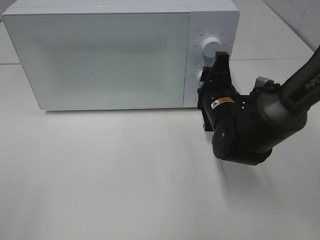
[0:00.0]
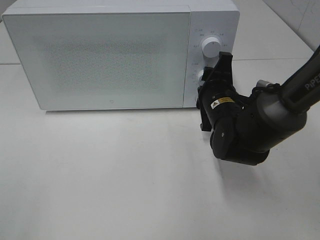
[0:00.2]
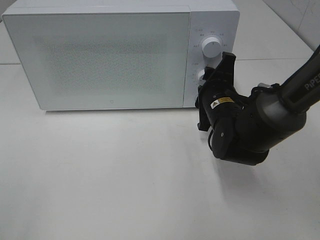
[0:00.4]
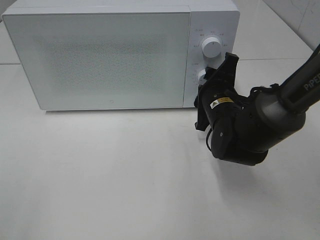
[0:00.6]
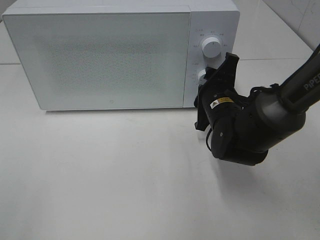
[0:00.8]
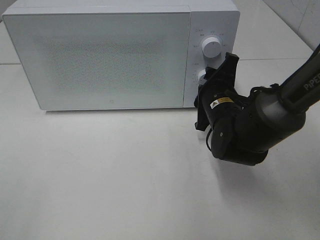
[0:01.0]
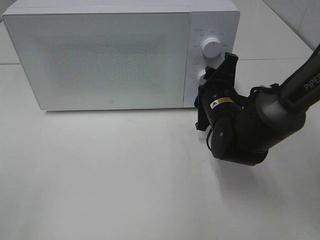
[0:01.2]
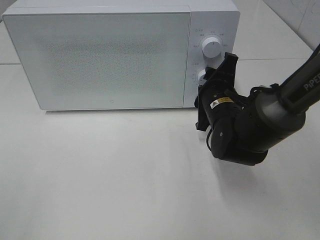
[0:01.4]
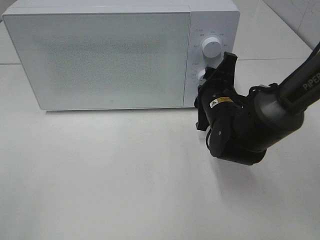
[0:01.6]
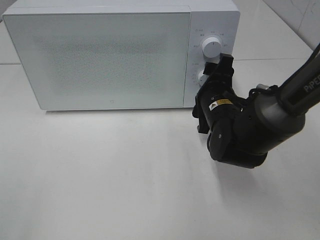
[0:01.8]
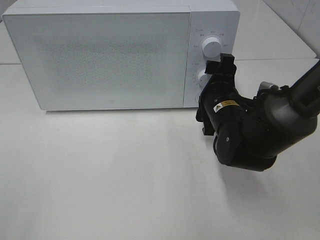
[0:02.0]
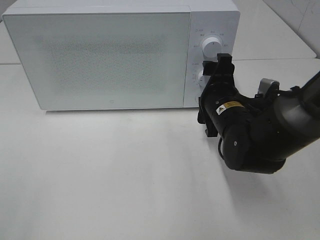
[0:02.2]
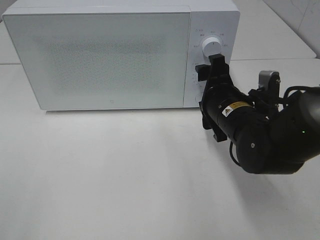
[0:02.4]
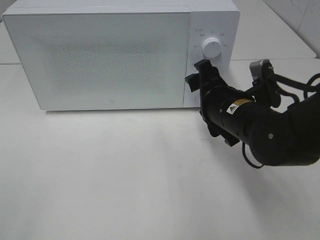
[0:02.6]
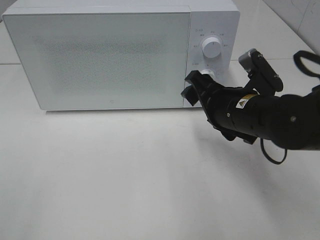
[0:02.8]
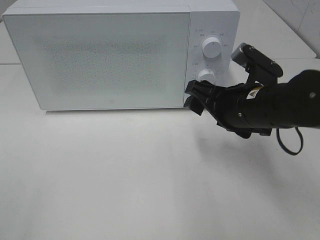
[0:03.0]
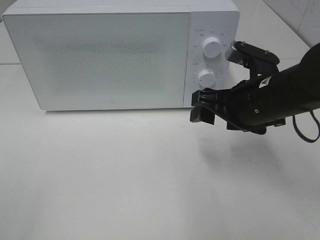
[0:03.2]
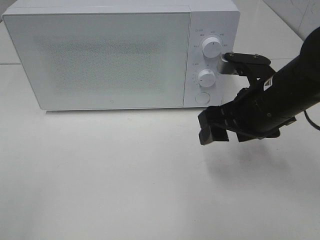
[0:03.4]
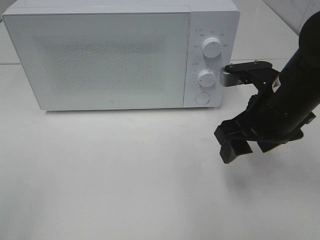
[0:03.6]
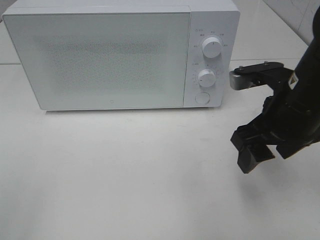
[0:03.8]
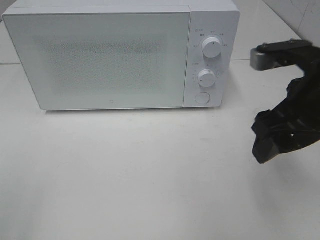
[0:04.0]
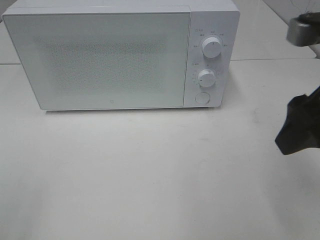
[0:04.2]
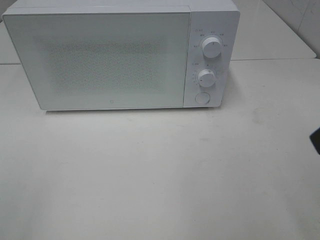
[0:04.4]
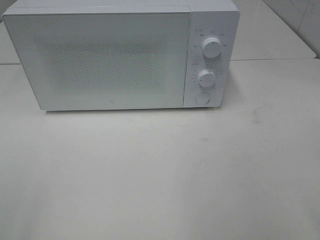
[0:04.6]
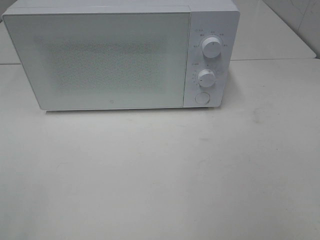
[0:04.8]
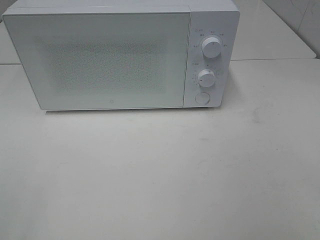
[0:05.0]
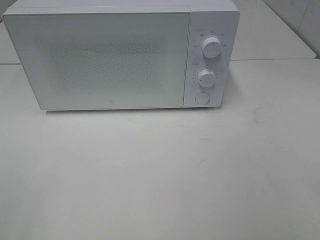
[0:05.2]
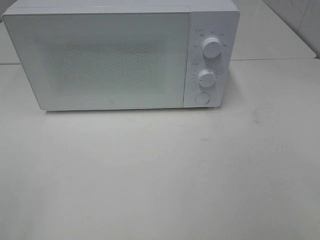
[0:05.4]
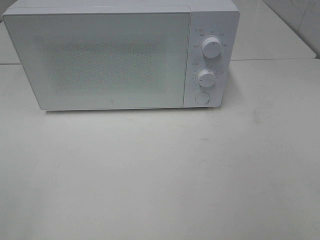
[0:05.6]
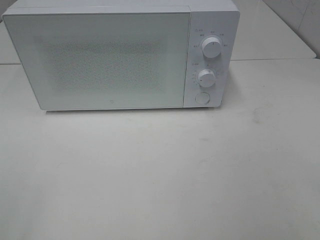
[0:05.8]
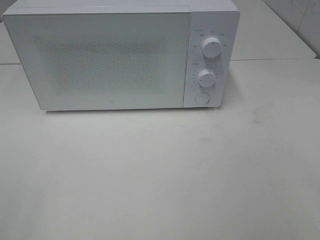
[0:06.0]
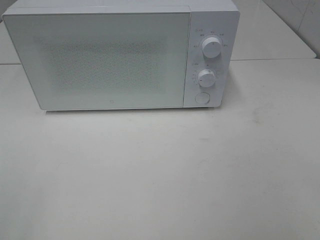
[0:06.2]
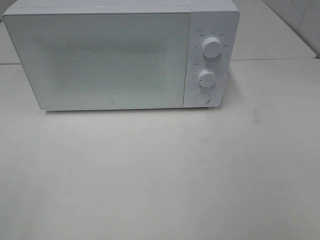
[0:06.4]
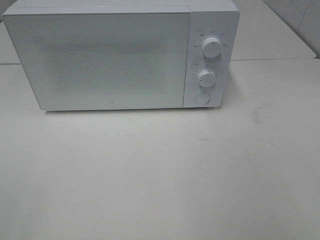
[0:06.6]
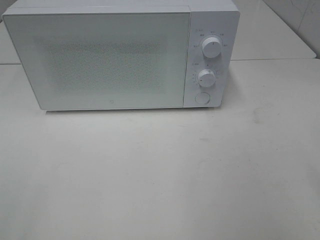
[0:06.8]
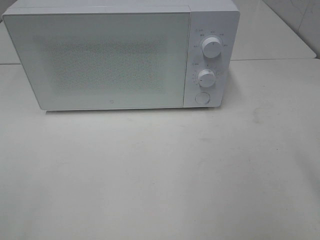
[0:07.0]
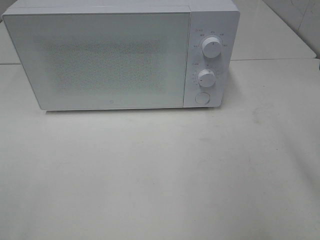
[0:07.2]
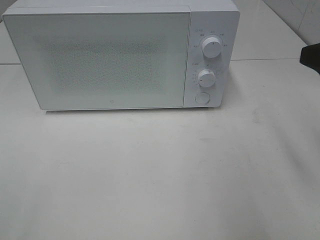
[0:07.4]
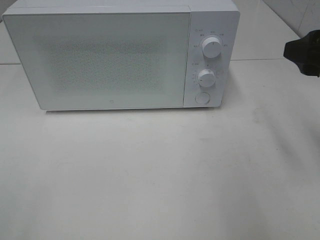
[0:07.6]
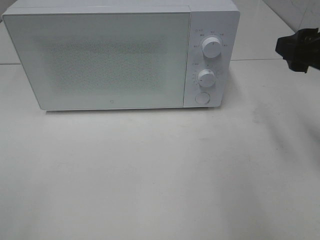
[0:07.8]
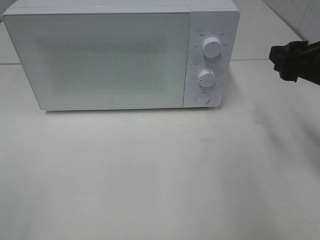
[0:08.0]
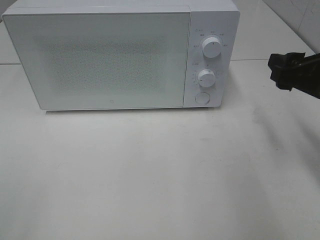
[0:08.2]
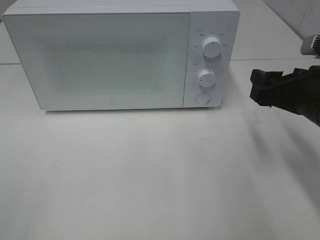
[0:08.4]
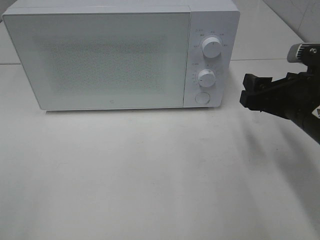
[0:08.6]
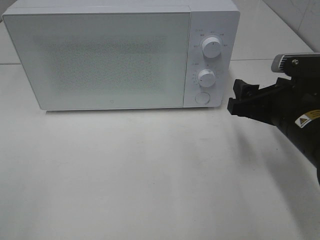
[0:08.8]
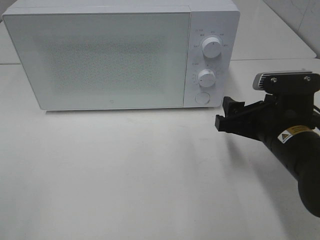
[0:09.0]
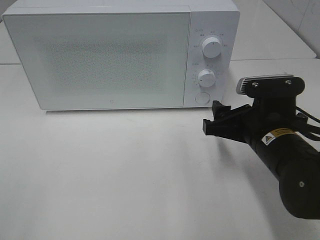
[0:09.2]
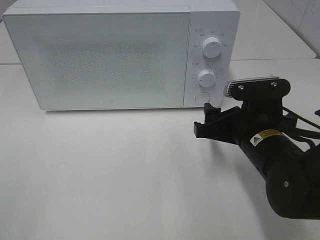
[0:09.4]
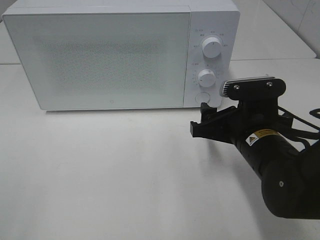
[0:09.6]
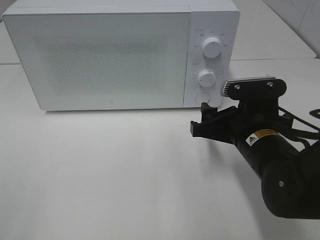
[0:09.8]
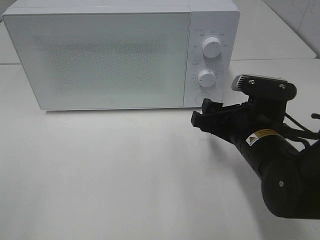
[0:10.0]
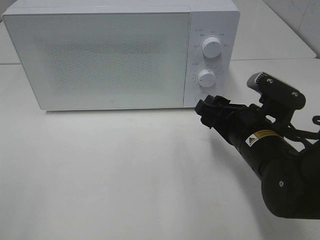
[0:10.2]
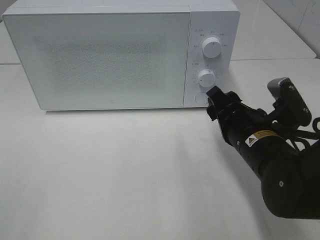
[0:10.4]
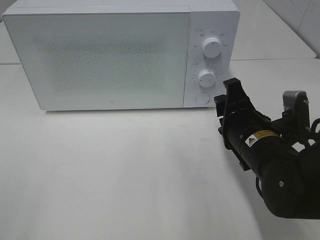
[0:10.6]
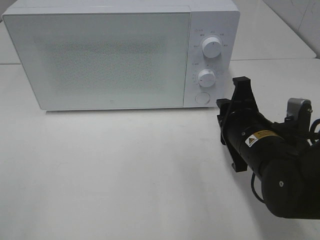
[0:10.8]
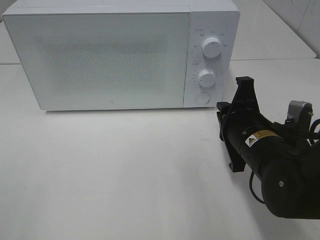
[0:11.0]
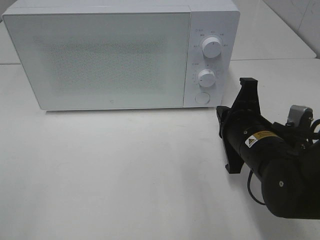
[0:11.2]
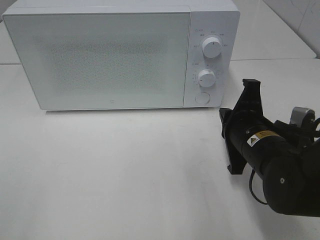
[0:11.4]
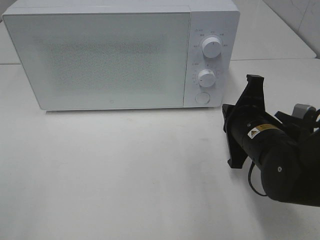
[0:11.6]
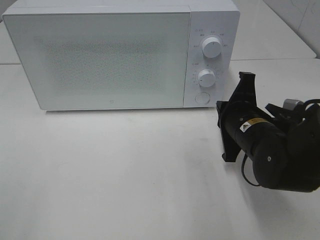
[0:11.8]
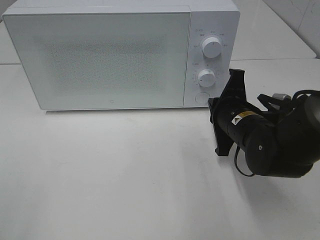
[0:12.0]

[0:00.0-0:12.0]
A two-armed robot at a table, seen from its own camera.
Task of the whole recording: Heat the burger.
0:00.0 to 0:01.6: The grippers move only a little.
0:01.6 to 0:03.0: The right gripper moves backward and upward, about 10 cm.
0:03.0 to 0:04.4: The right gripper heads upward, backward and to the right, covering approximately 20 cm.
0:06.0 to 0:07.6: The right gripper shifts some 20 cm forward.
0:07.6 to 0:09.0: The right gripper heads downward and to the left, covering approximately 15 cm.
0:10.4 to 0:12.0: The right gripper is displaced forward by approximately 5 cm, and closes up.

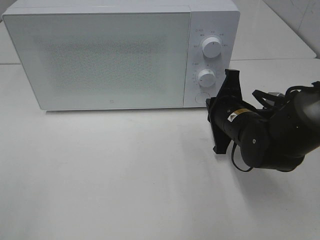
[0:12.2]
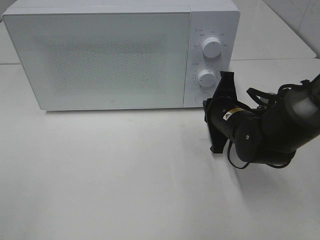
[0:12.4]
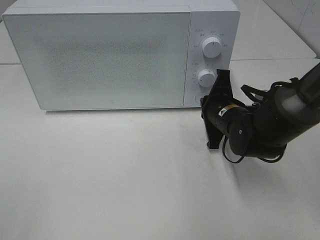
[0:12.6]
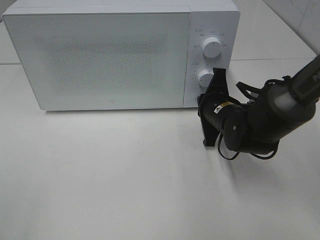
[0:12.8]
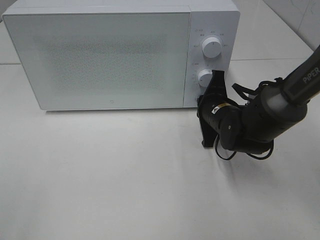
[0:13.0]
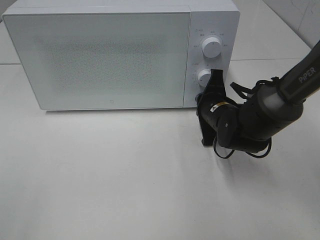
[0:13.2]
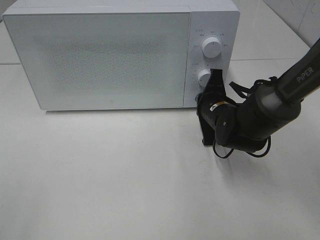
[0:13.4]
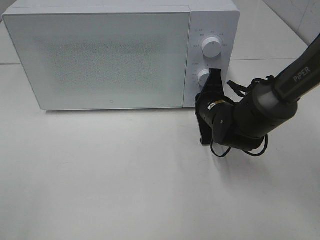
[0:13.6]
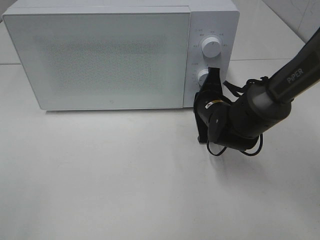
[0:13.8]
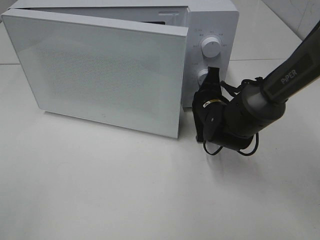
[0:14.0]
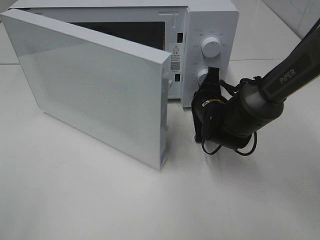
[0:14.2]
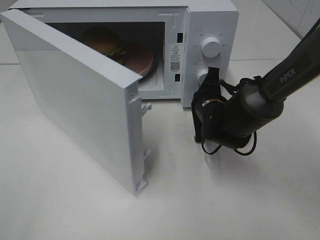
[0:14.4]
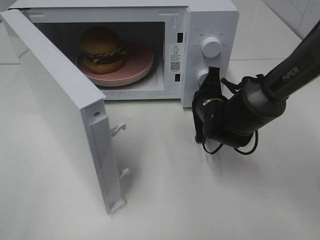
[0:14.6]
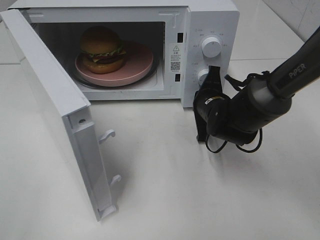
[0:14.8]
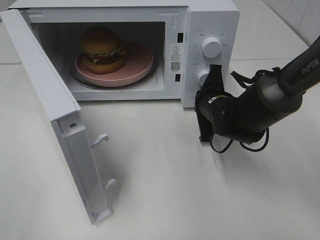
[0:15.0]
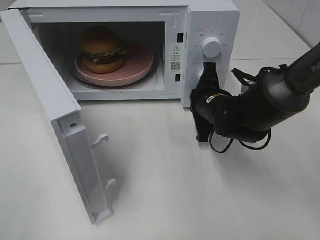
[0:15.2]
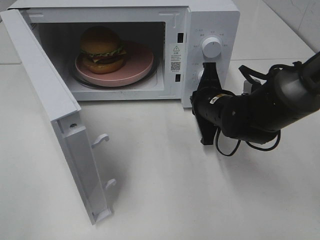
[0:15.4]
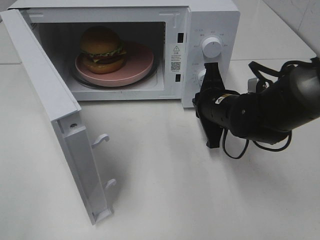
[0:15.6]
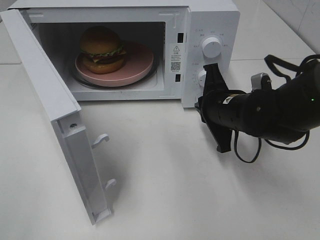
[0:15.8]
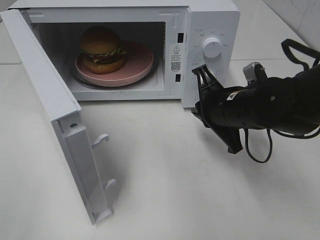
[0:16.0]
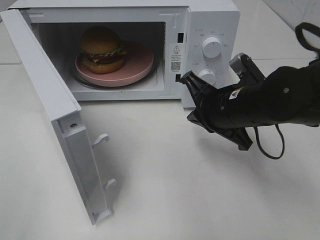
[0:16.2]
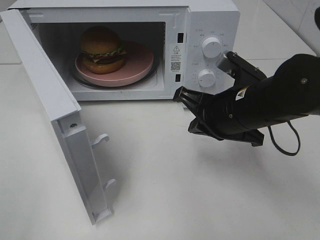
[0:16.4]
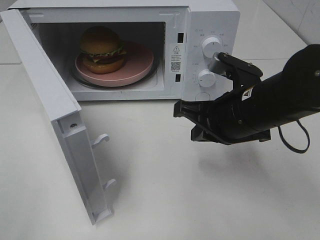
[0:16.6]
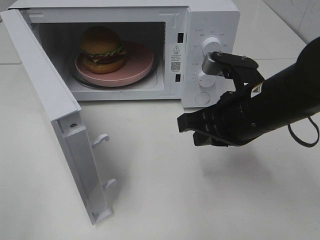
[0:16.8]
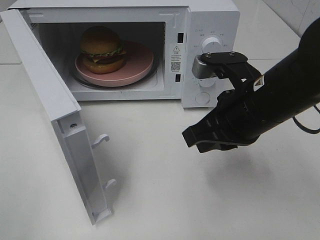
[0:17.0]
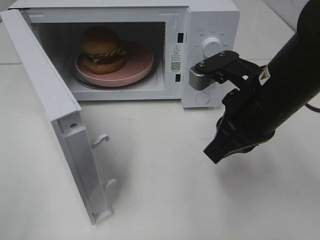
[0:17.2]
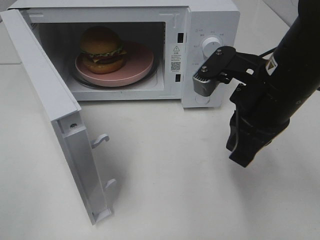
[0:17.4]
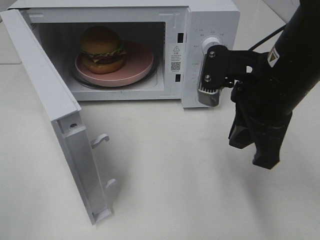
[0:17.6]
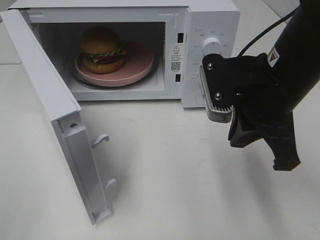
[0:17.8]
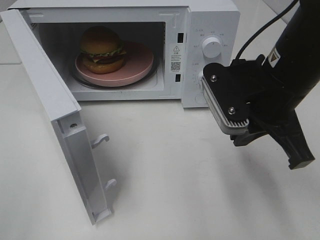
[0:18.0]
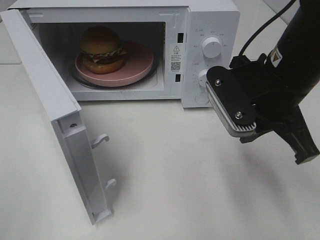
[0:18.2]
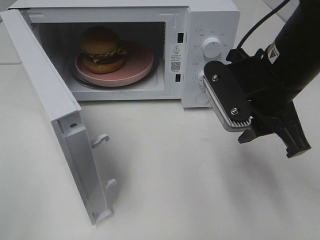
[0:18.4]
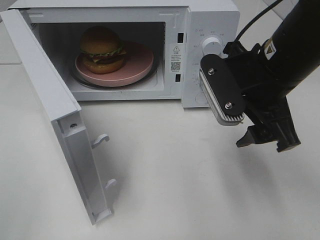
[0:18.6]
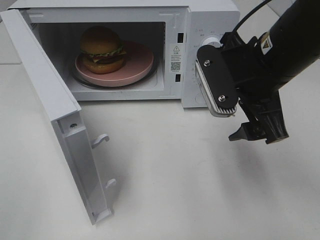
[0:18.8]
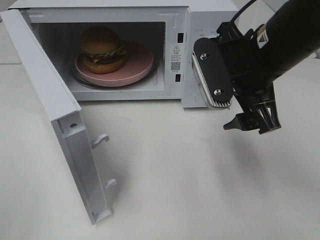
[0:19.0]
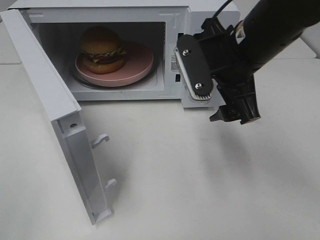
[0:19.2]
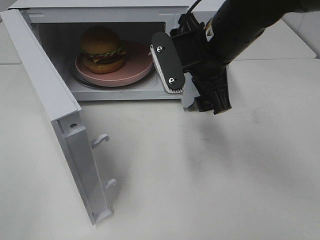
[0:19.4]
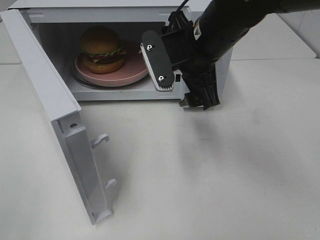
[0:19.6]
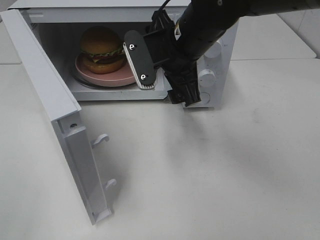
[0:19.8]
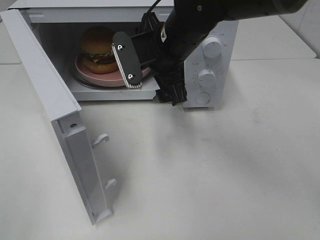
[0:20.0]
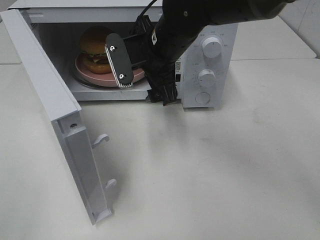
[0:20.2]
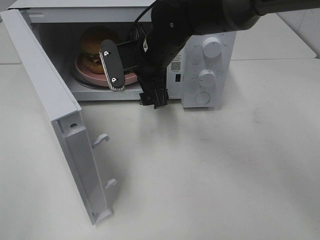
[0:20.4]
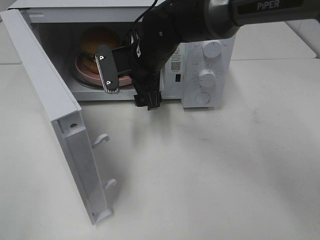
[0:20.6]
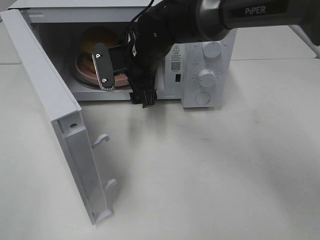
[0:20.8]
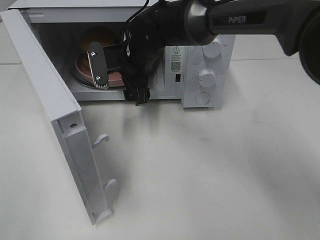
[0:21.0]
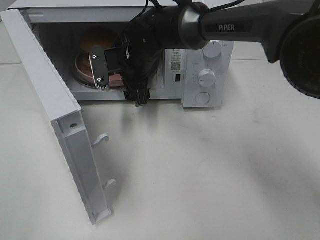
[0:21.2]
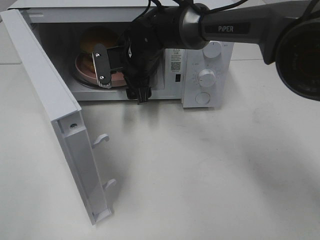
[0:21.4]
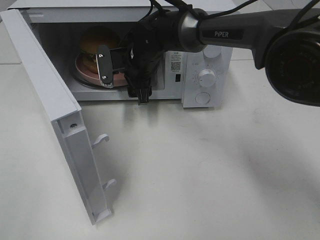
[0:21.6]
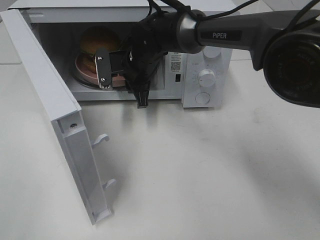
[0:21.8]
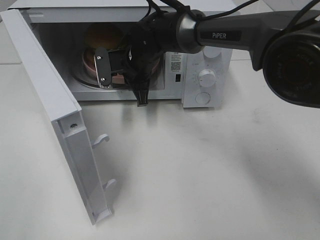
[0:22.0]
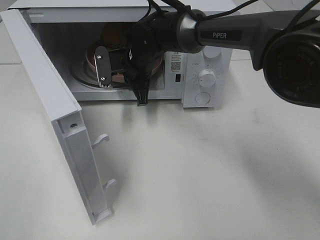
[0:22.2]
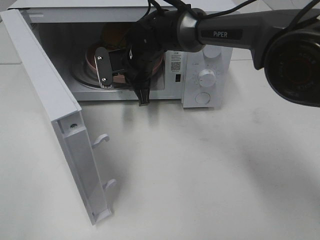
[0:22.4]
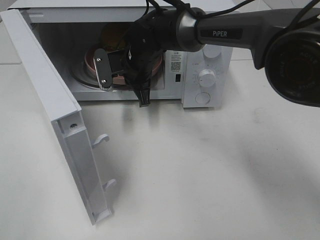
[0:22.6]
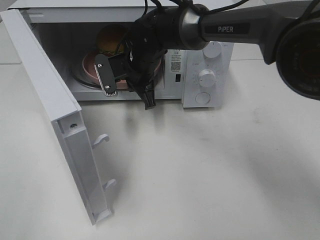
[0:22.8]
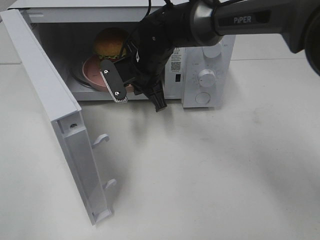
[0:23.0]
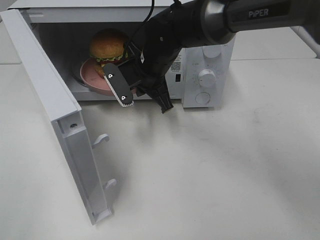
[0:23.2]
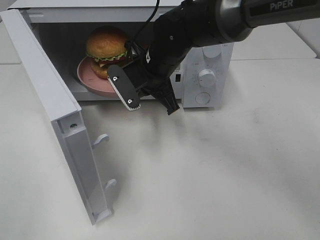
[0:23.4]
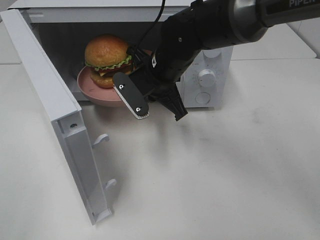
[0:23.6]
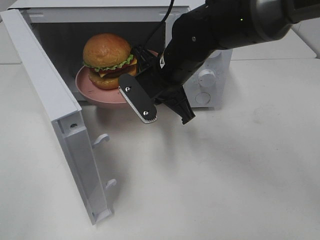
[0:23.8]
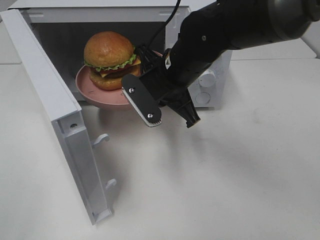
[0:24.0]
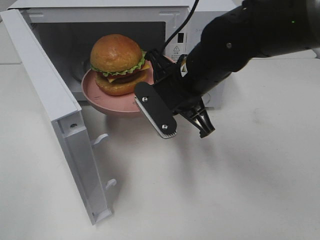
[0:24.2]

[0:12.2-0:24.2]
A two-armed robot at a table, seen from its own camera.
Task of the whole recording: Heat the burger.
Step, 0:12.2 to 0:15.4: Right hand: press the switch.
Step, 0:15.6 to 0:22.2: Right hand: grab the plate with the hamburger.
0:12.2 to 0:13.8: The right gripper goes approximately 5 cm forward.
0:15.2 to 0:16.6: The right gripper heads backward and upward, covering approximately 10 cm.
0:16.6 to 0:18.2: The right gripper travels upward by roughly 5 cm.
0:18.2 to 0:19.8: The right gripper goes some 15 cm to the left and forward, and opens.
0:19.8 to 0:21.2: The right gripper heads forward, downward and to the left, covering some 15 cm.
0:21.2 to 0:22.6: The right gripper closes its fingers.
0:22.6 to 0:24.2: The right gripper travels backward and to the right by approximately 15 cm.
